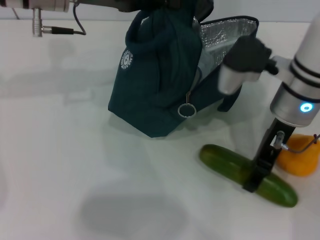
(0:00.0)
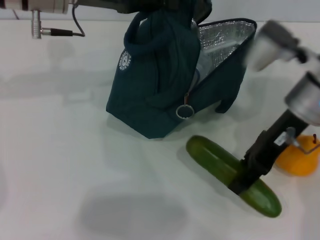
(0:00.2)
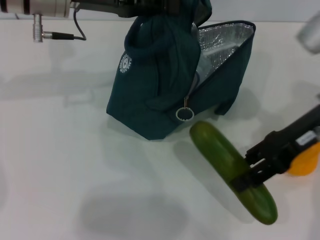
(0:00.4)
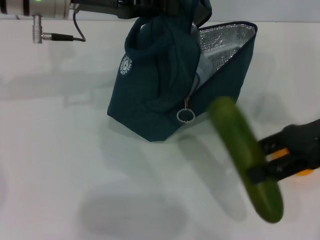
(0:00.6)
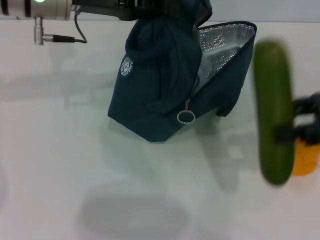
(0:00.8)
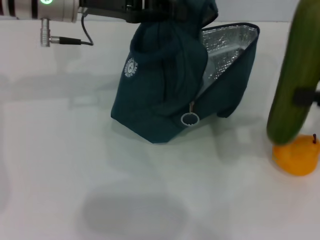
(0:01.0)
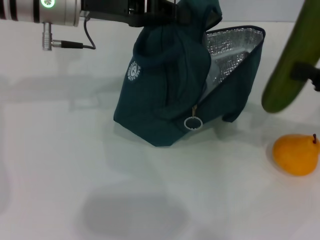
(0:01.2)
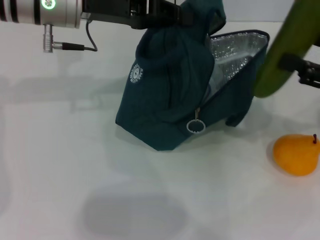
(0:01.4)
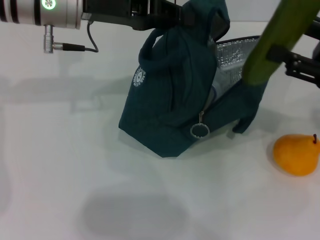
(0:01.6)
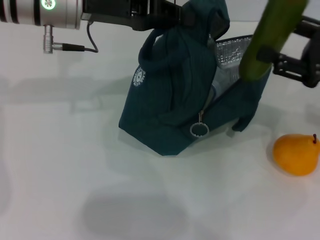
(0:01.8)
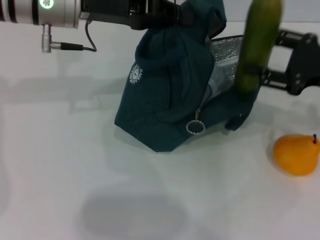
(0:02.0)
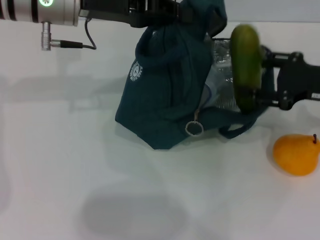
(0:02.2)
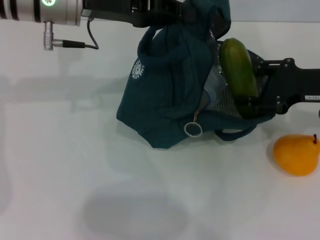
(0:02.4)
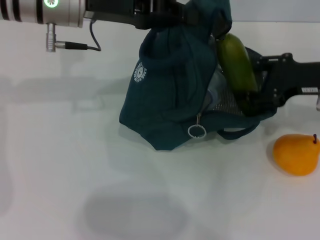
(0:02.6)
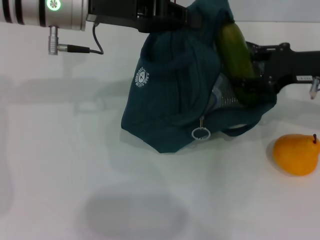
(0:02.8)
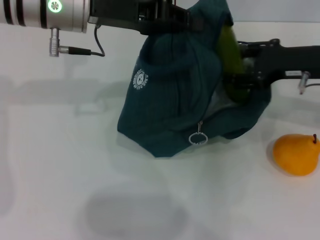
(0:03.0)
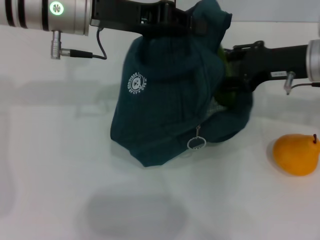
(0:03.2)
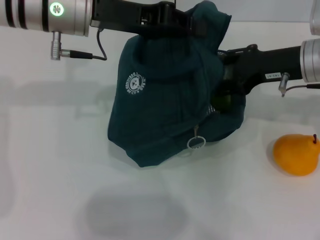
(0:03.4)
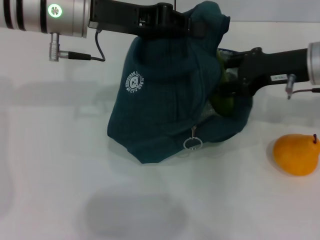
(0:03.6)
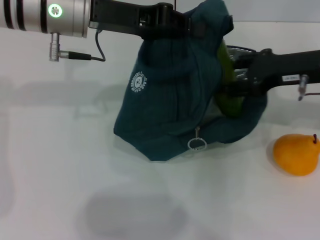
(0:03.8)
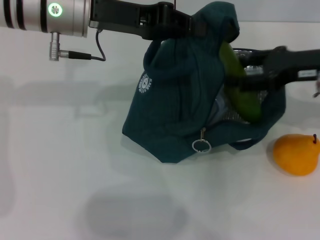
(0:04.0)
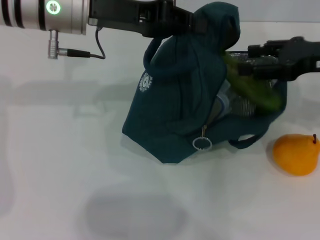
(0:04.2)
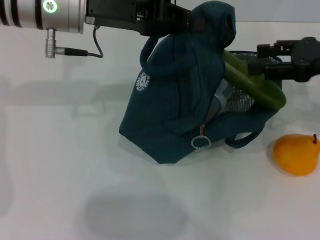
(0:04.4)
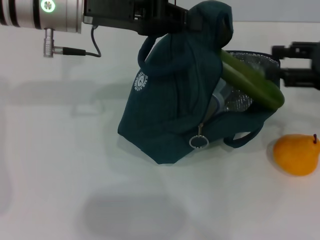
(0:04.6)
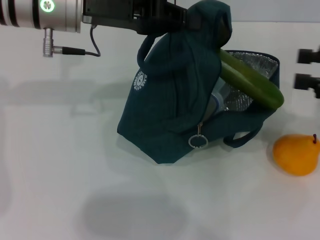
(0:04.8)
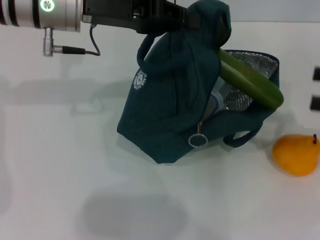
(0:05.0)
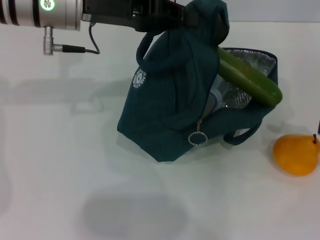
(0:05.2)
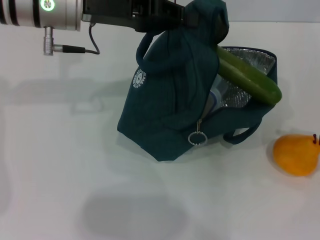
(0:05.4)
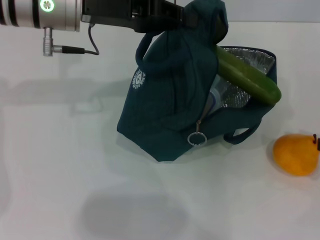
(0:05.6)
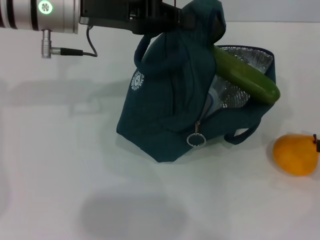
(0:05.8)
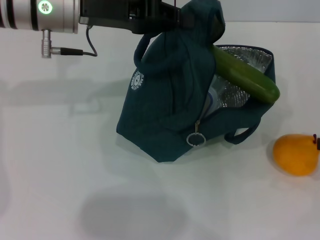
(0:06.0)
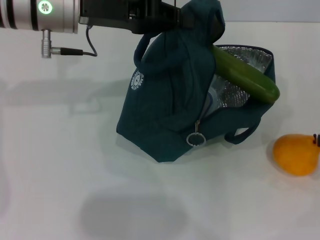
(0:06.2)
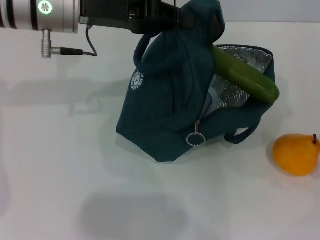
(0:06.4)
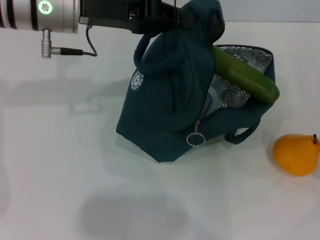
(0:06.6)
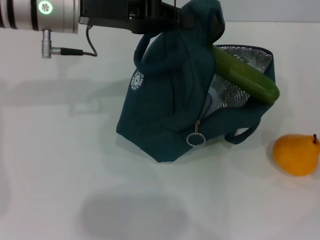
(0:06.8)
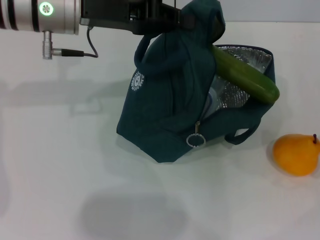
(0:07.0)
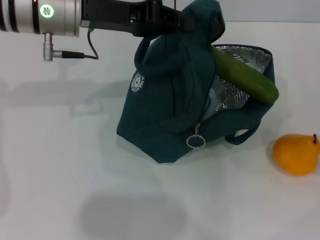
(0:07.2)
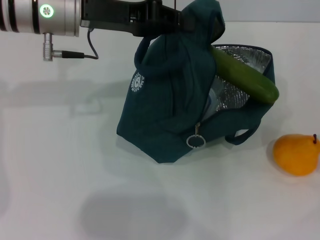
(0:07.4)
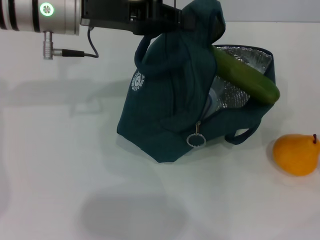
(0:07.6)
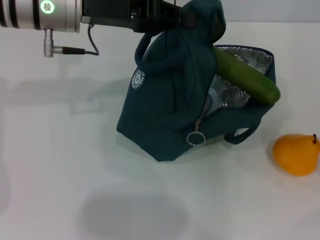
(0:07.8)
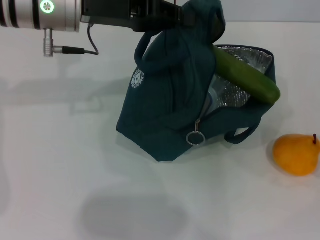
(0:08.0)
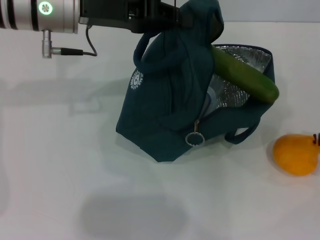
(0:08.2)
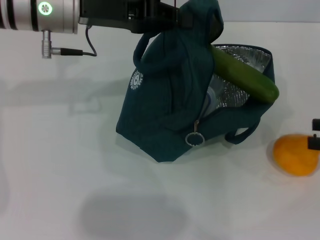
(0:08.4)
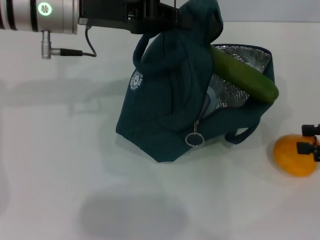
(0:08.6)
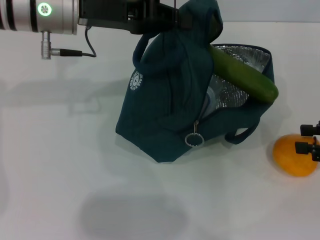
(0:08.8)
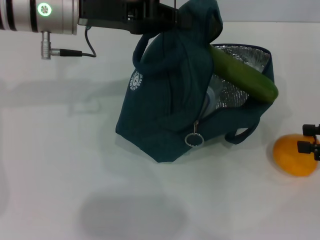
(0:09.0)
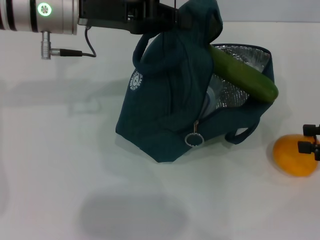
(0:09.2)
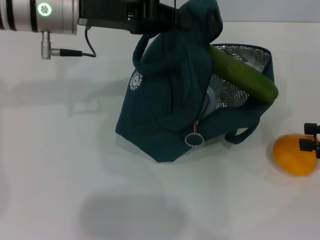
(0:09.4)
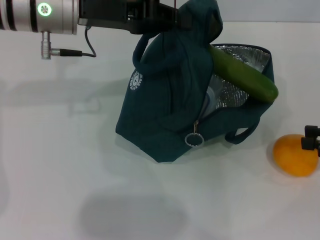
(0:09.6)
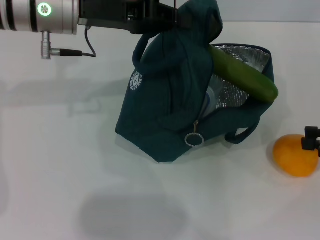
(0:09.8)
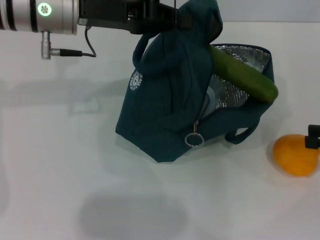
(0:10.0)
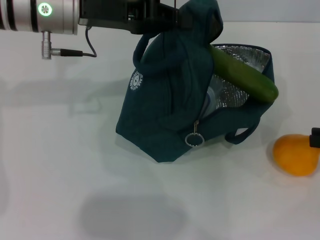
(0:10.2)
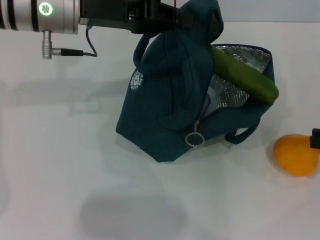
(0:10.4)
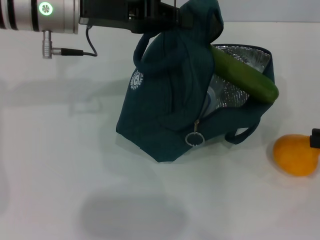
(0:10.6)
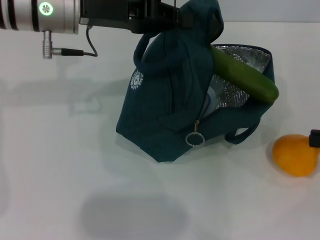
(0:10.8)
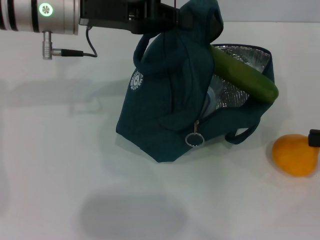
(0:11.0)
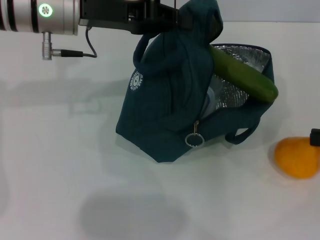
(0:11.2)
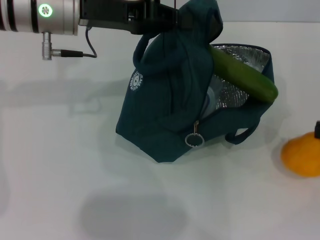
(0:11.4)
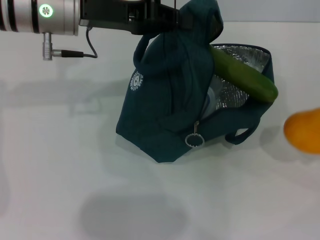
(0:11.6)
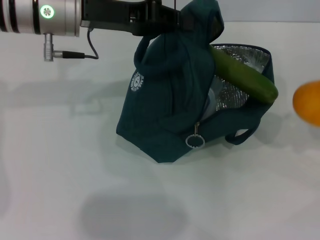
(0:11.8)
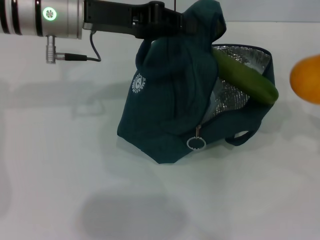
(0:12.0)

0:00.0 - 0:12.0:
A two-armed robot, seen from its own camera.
Step, 0:00.0 - 0:04.4: Put the cucumber into the lunch bag with your right hand.
Step, 0:04.8 - 0:10.8: Grab the pear with your right hand.
0:00.0 - 0:01.6: The right gripper goes about 15 cm to the right.
0:01.6 - 0:03.0: The right gripper shifts approximately 10 cm forward and to the left.
0:03.0 - 0:04.4: The right gripper changes place by about 5 cm.
0:04.4 - 0:06.0: The right gripper heads to the right, backward and downward, covering some 15 cm.
0:06.0 - 0:07.6: The right gripper closes its fingers.
0:07.6 - 0:09.0: The right gripper shifts by some 5 cm, and opens up.
0:09.0 - 0:10.4: The right gripper closes.
0:10.4 - 0:12.0: The right gripper travels upward by roughly 5 cm.

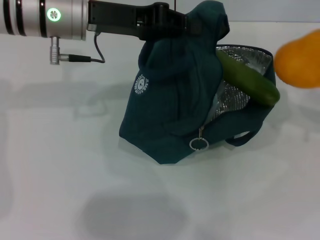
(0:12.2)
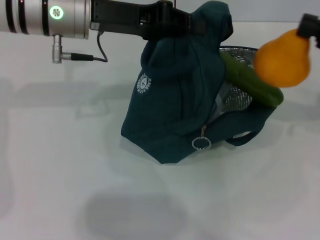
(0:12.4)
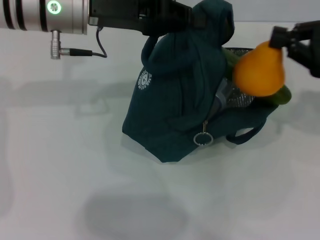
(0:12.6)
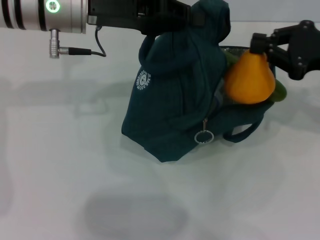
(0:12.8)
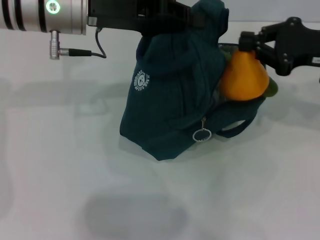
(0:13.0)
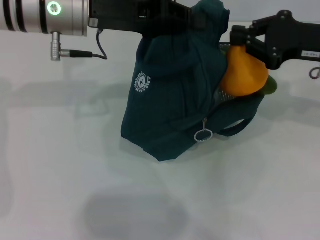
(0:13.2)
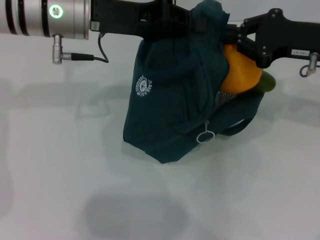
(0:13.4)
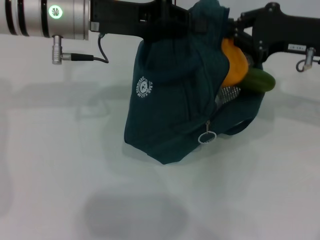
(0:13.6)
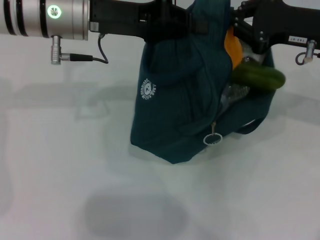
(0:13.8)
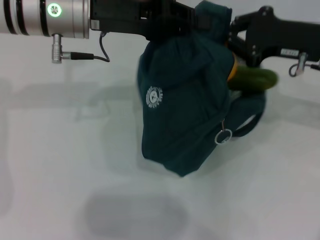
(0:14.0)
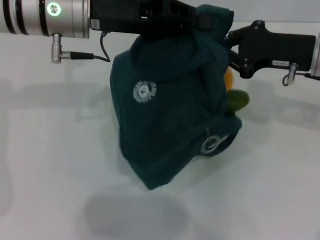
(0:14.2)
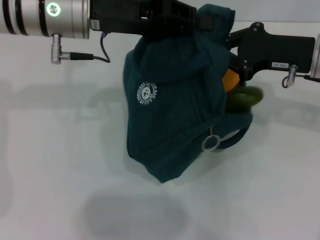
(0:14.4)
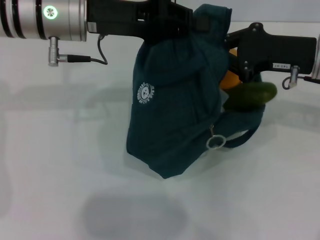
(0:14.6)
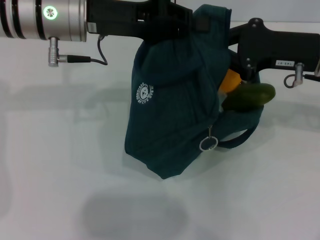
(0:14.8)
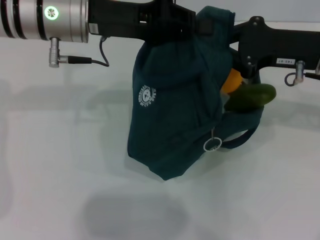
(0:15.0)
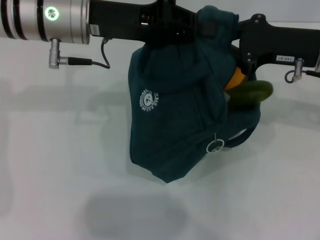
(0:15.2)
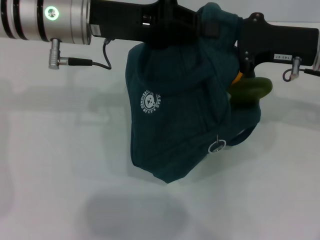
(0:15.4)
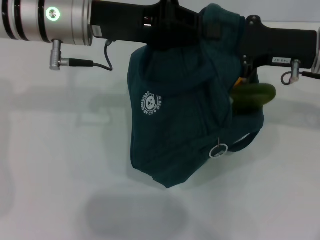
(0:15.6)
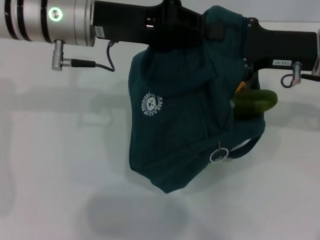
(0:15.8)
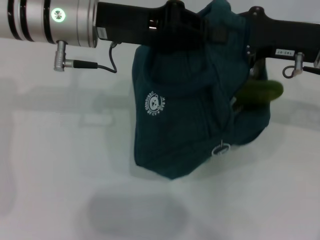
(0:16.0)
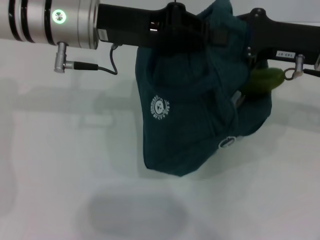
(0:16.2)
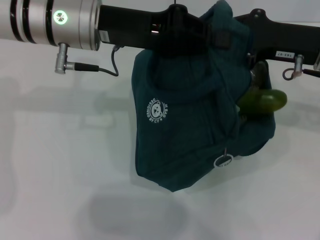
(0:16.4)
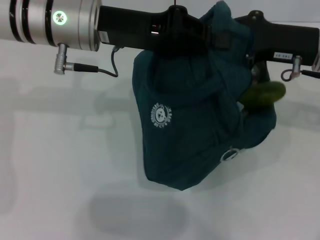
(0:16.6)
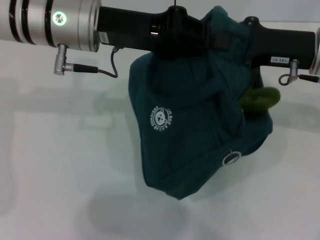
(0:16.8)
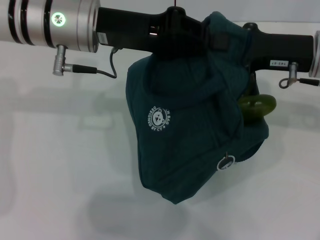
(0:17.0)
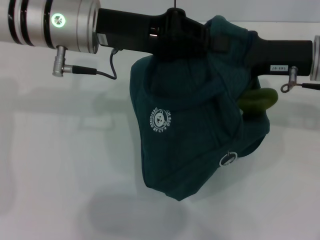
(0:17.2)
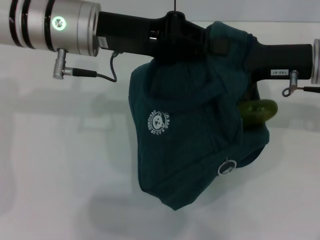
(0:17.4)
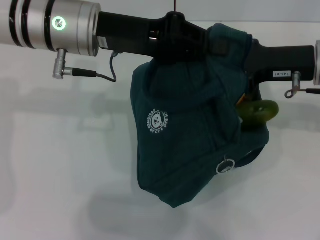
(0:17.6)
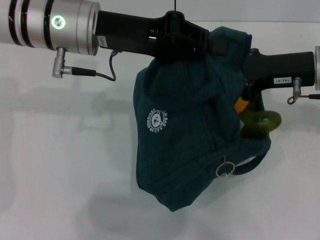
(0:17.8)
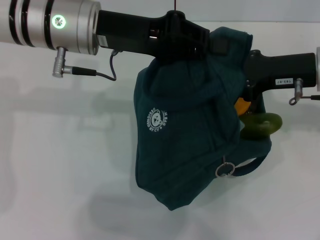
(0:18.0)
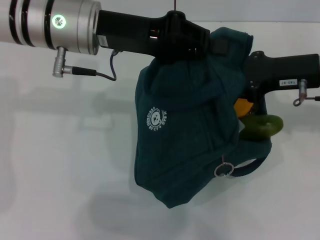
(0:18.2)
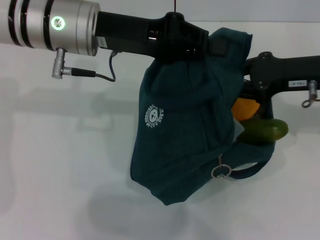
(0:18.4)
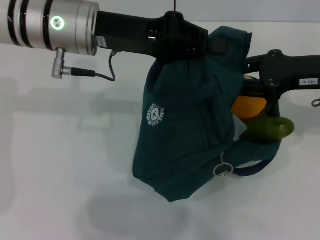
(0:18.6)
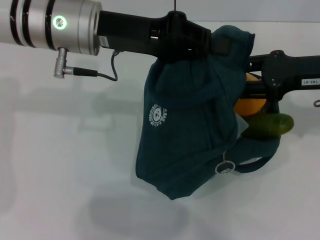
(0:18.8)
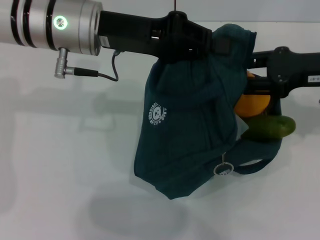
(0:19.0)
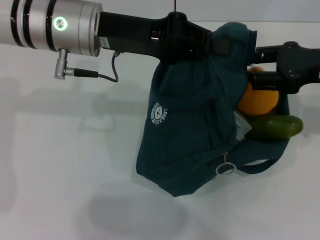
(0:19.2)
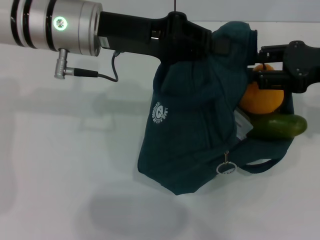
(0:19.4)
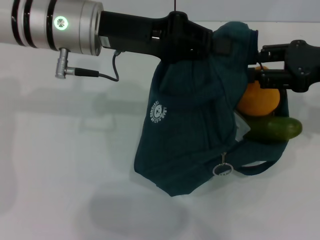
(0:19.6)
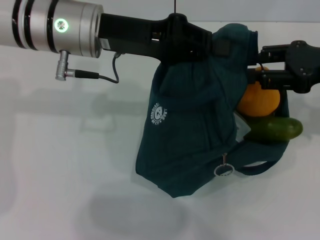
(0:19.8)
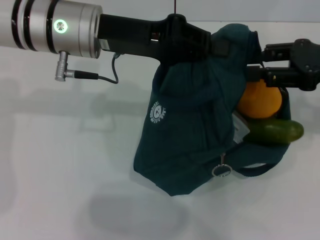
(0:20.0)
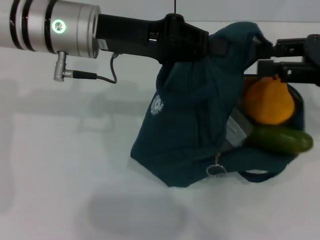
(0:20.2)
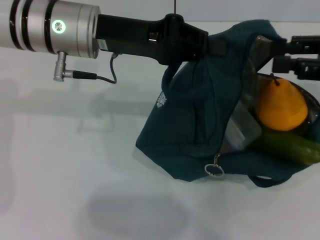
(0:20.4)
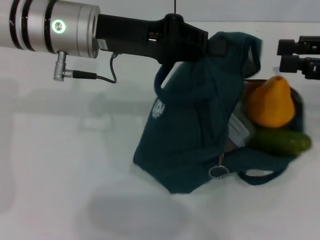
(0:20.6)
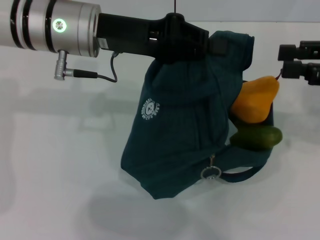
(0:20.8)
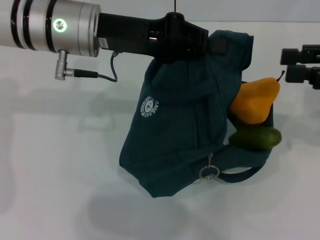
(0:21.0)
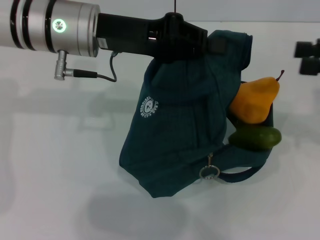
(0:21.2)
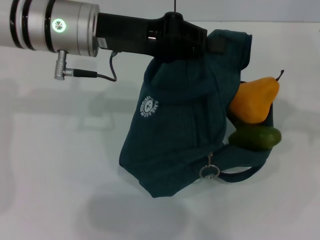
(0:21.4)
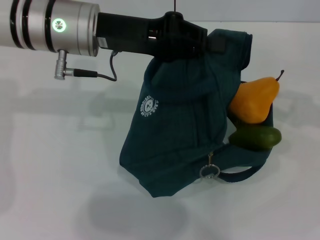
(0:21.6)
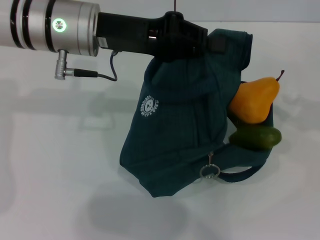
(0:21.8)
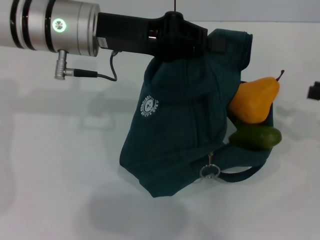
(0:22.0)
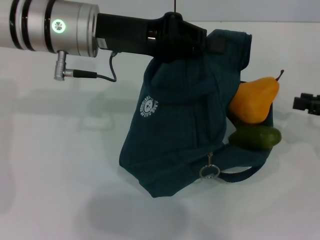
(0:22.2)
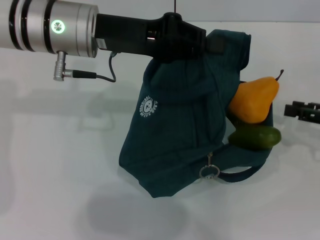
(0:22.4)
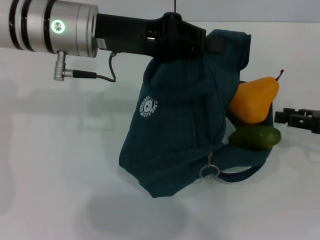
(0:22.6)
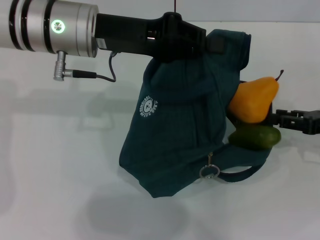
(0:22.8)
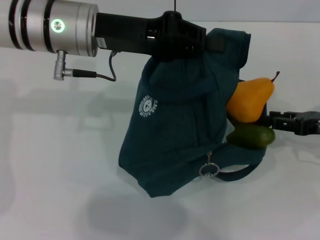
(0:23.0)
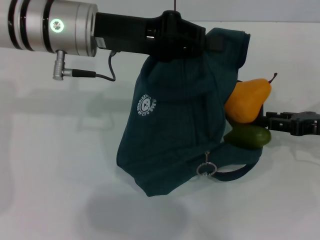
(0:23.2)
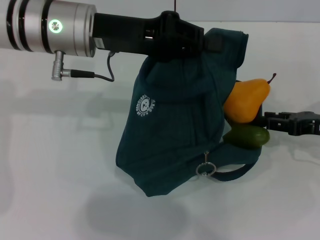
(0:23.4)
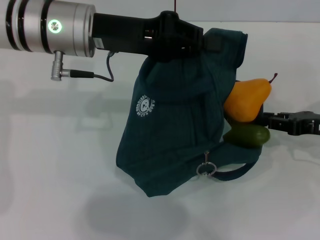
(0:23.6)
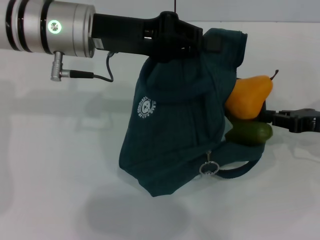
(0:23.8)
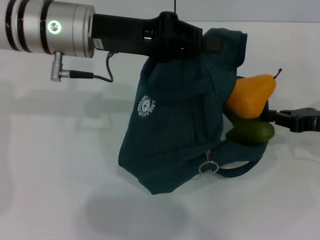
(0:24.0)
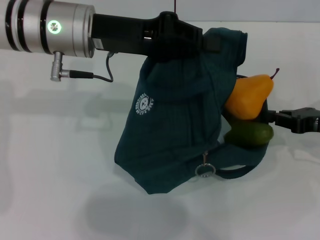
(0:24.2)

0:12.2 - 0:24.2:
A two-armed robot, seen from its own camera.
Step, 0:12.2 - 0:21.4: Secure the lunch bag with your left hand.
0:12.2 - 0:13.8: The right gripper heads to the left and forward, covering about 15 cm.
0:13.8 - 0:16.6: The grippers make only small movements.
0:16.6 - 0:18.2: There are only small adjustments of the grippers.
0:18.2 - 0:19.8: The right gripper ends up about 5 cm from where it was, and opens.
0:19.8 - 0:21.2: The right gripper heads to the right, covering roughly 5 cm.
0:21.2 - 0:22.6: The right gripper travels downward by roughly 10 cm.
0:22.6 - 0:24.2: The right gripper closes.
